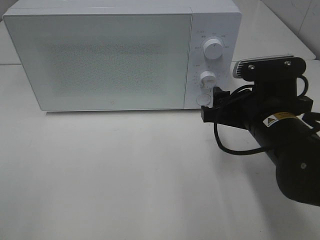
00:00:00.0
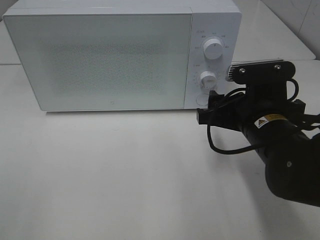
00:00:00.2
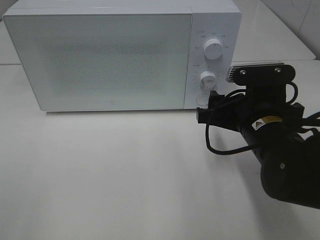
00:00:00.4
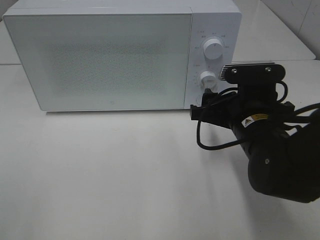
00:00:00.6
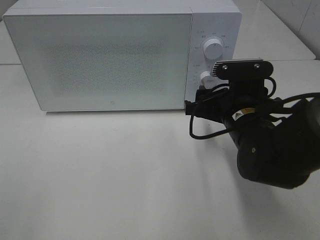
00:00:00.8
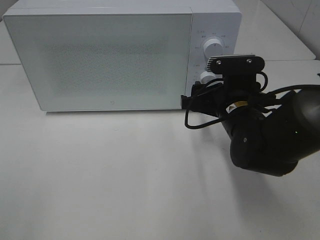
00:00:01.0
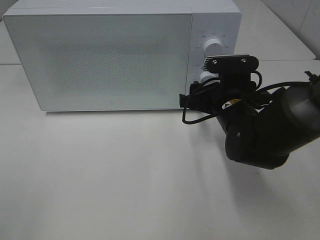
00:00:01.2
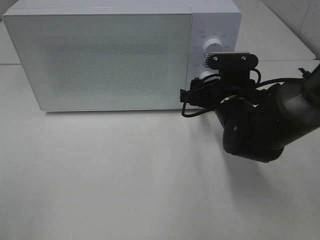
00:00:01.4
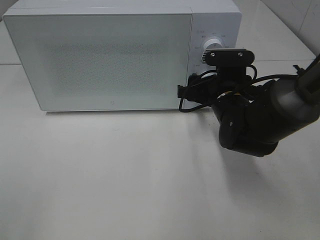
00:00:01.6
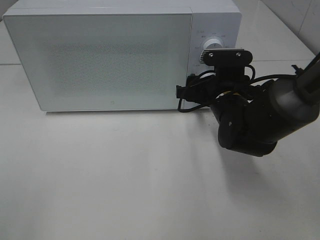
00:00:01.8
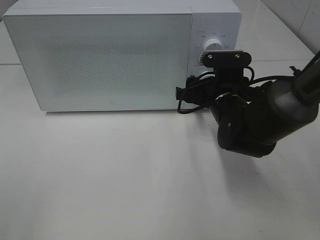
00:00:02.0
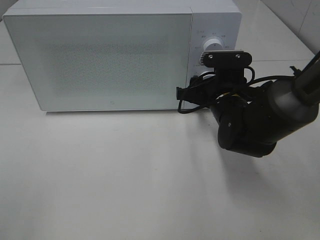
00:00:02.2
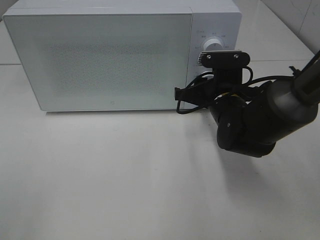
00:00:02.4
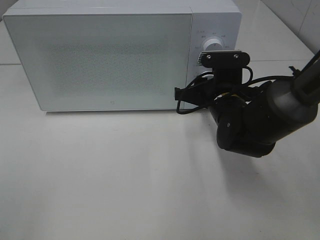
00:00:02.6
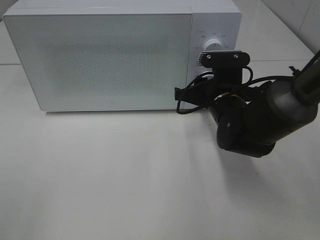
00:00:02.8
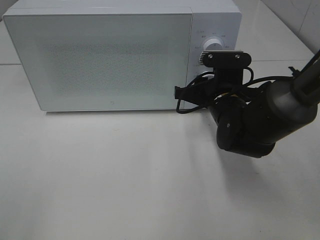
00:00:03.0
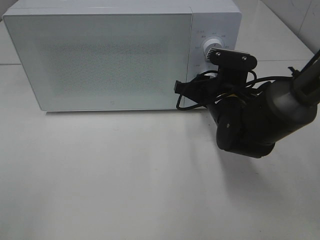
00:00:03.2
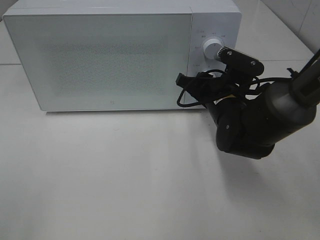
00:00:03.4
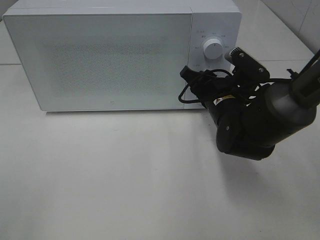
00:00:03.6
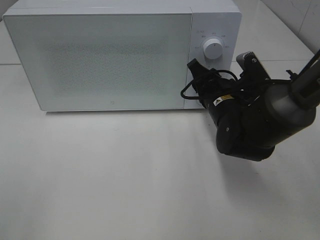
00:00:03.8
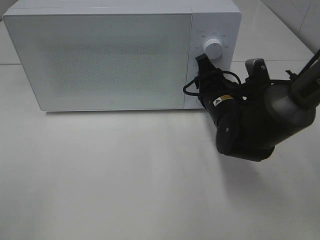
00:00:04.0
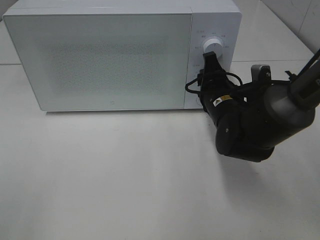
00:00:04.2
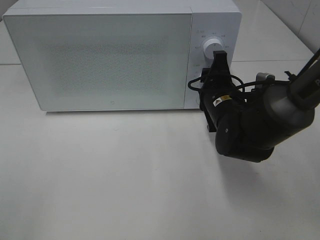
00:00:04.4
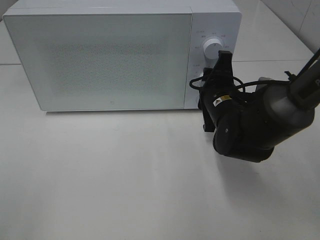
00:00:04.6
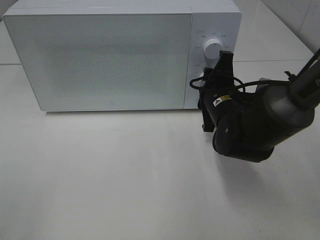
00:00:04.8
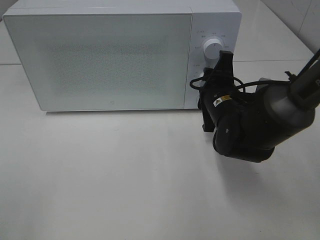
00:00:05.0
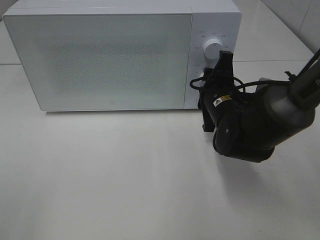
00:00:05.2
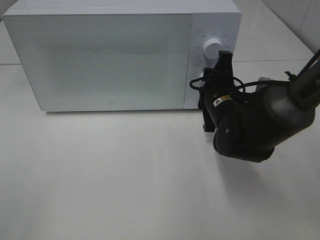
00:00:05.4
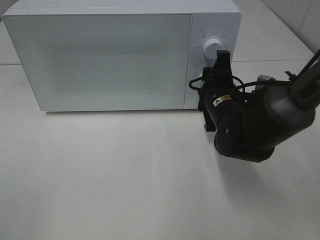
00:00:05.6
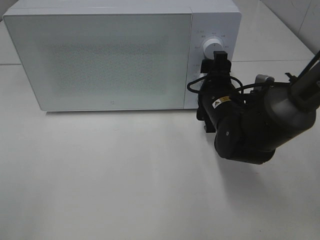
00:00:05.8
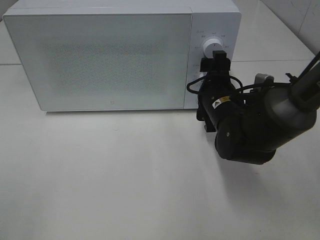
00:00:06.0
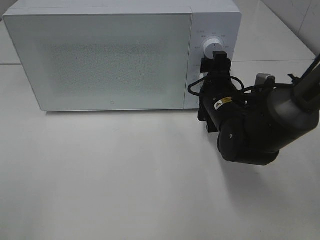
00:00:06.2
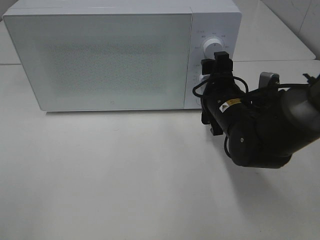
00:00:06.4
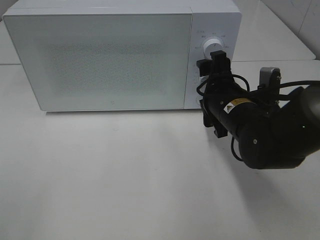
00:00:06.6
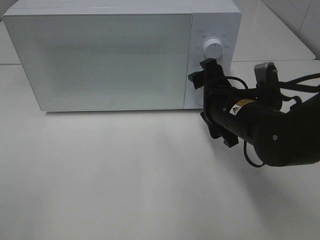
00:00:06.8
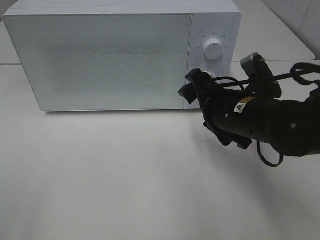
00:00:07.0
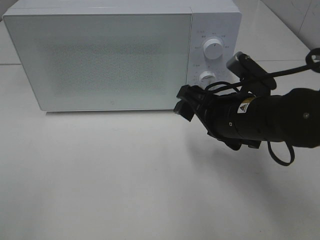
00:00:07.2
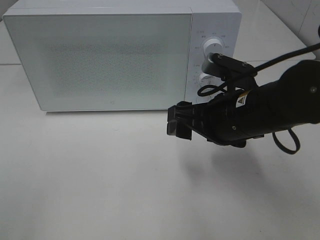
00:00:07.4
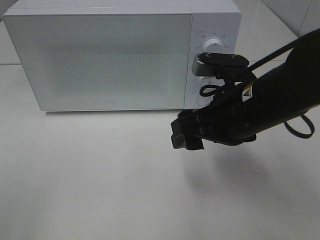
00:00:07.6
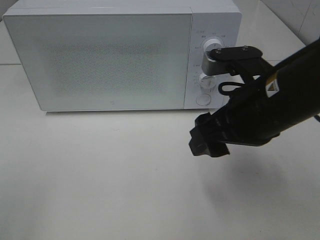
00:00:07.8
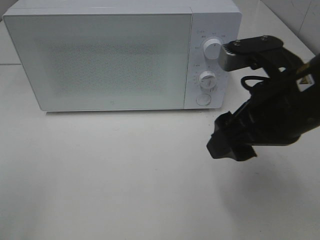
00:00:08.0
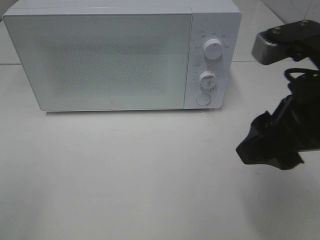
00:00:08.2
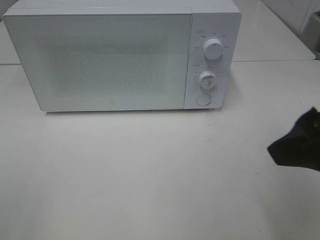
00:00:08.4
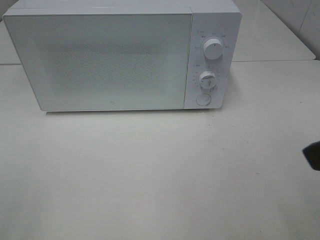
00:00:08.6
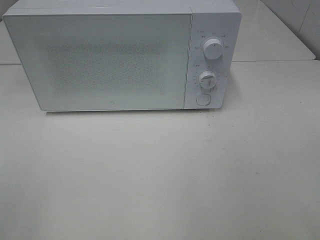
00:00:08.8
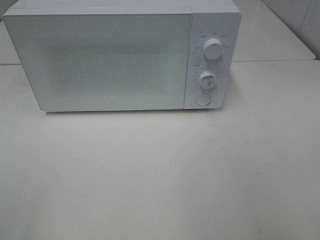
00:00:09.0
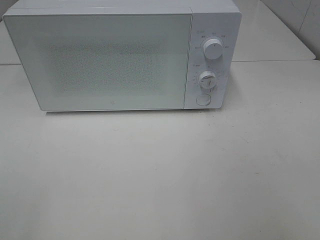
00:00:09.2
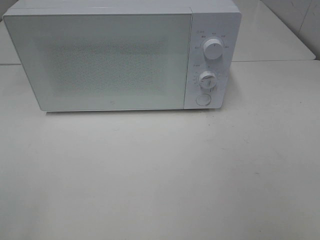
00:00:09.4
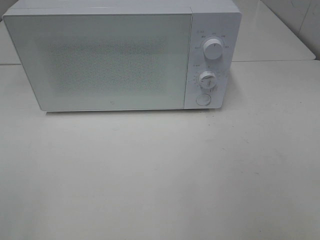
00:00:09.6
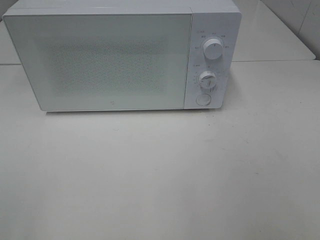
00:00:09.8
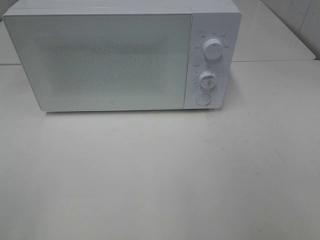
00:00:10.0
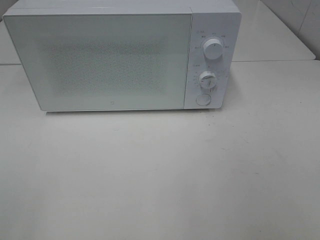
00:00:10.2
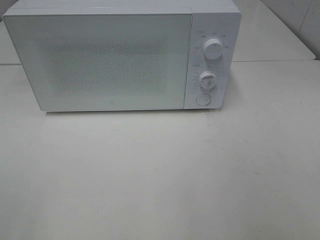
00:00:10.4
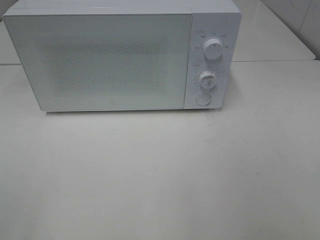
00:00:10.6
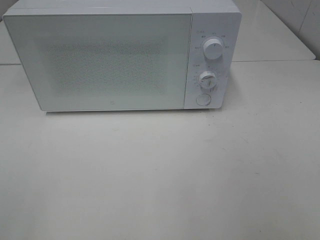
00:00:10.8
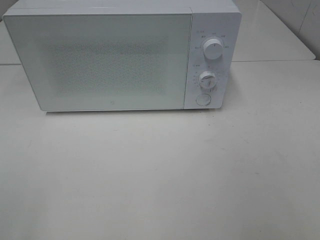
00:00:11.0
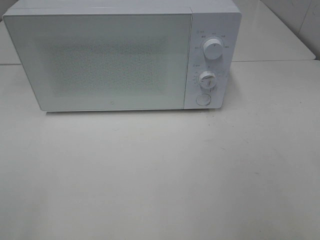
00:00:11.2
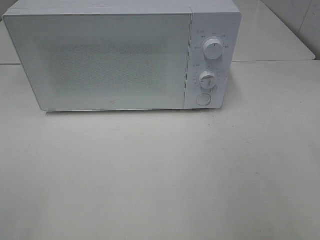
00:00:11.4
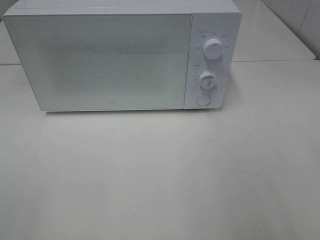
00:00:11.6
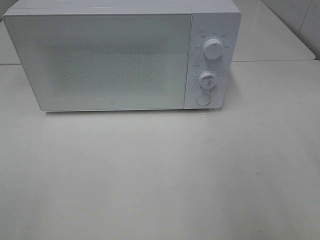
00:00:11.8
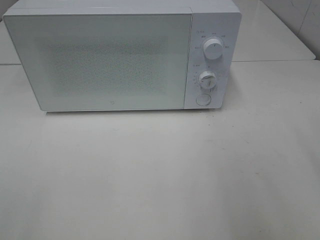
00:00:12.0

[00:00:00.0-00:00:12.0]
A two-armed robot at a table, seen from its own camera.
Task of the whole recording: Heat Sandwich.
Step, 00:00:00.0 to 00:00:06.8: Right hand: twist timer button.
00:00:00.0 to 00:00:01.6: The right gripper goes roughly 10 cm forward.
00:00:01.6 to 00:00:03.0: The right gripper closes its fingers.
00:00:04.4 to 00:00:06.0: The right gripper opens its fingers.
00:00:06.0 to 00:00:07.6: The right gripper heads backward and upward, covering some 10 cm.
00:00:07.6 to 00:00:09.0: The right gripper is displaced backward, to the right and upward by about 25 cm.

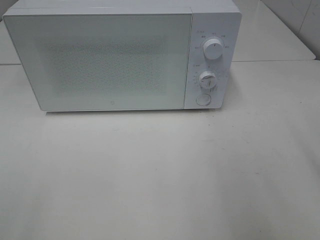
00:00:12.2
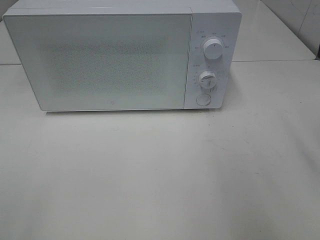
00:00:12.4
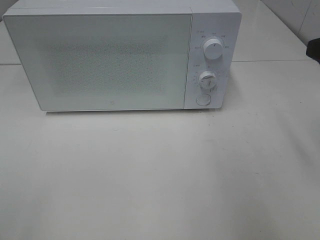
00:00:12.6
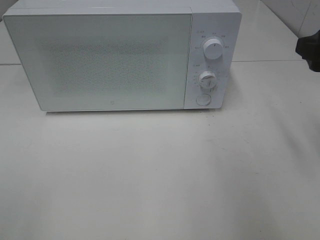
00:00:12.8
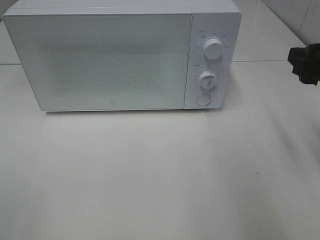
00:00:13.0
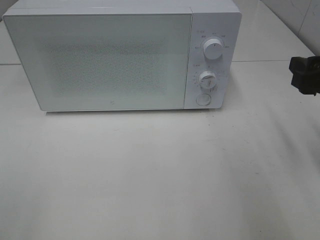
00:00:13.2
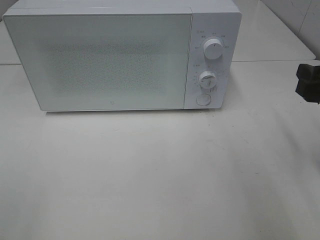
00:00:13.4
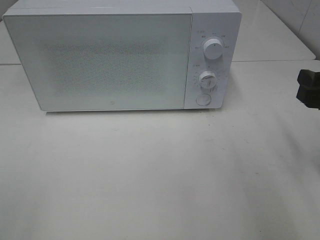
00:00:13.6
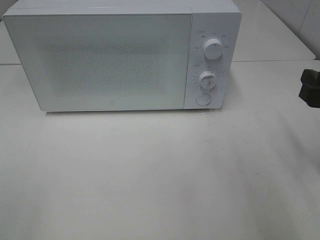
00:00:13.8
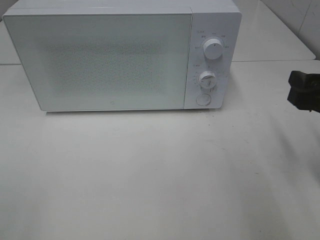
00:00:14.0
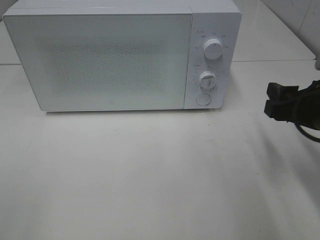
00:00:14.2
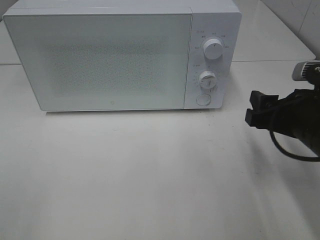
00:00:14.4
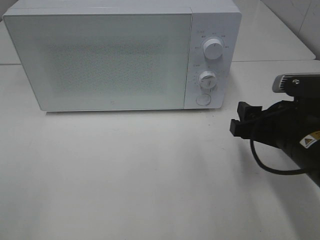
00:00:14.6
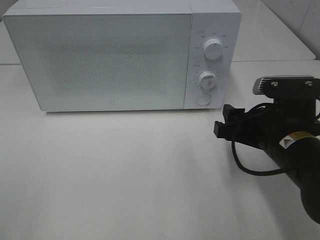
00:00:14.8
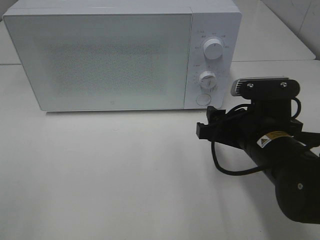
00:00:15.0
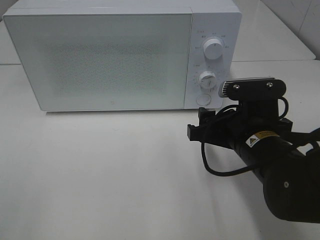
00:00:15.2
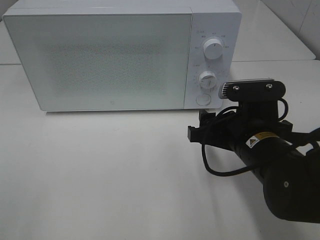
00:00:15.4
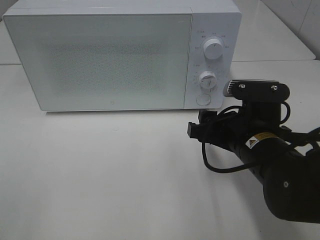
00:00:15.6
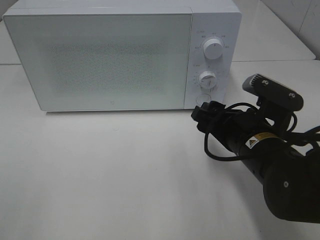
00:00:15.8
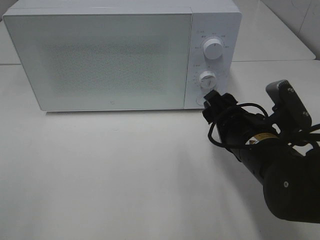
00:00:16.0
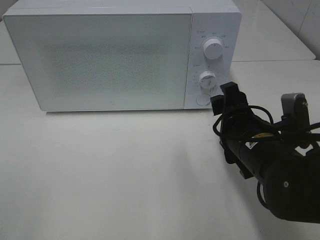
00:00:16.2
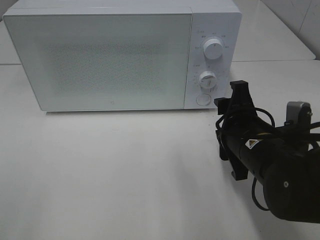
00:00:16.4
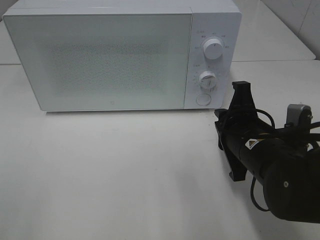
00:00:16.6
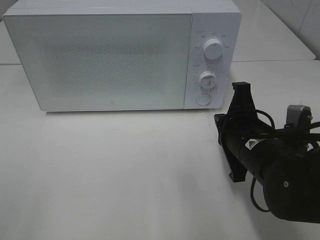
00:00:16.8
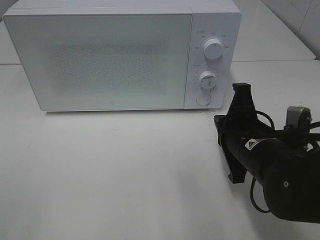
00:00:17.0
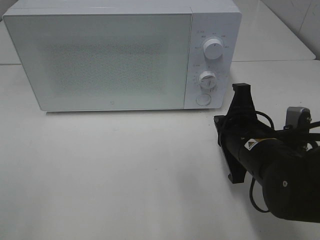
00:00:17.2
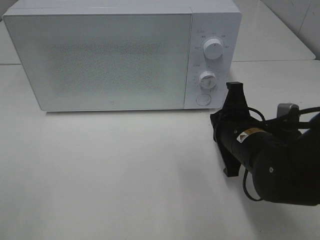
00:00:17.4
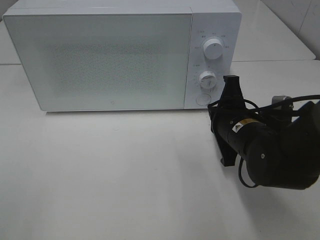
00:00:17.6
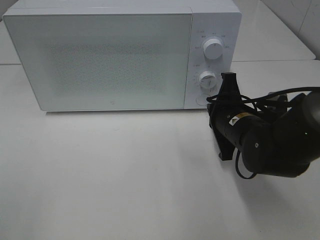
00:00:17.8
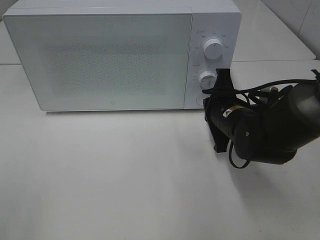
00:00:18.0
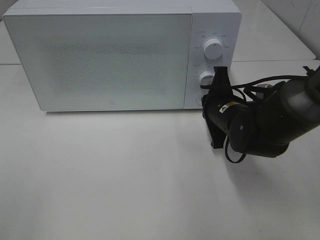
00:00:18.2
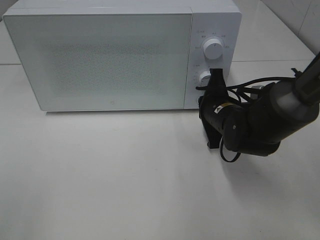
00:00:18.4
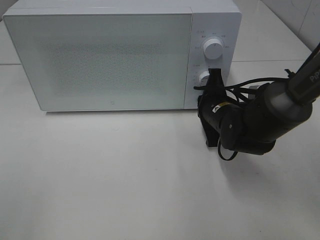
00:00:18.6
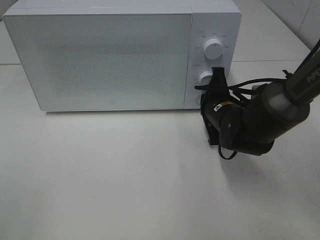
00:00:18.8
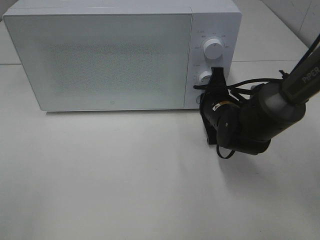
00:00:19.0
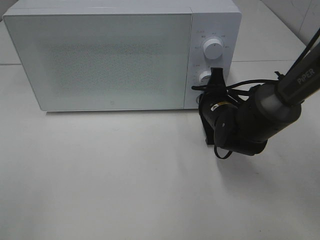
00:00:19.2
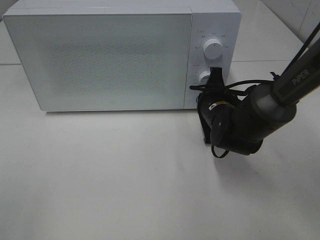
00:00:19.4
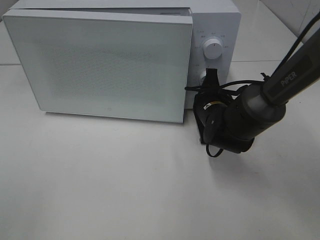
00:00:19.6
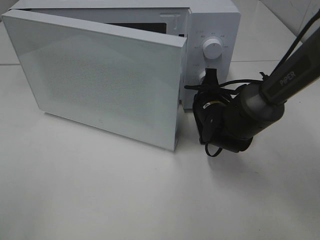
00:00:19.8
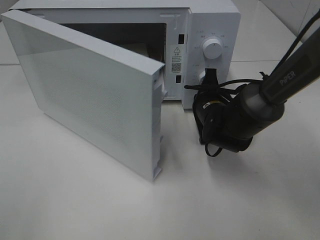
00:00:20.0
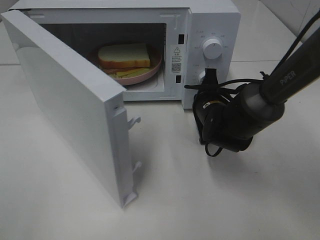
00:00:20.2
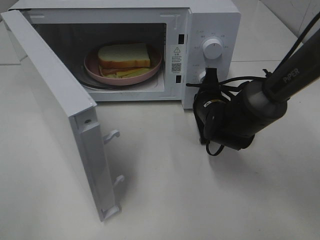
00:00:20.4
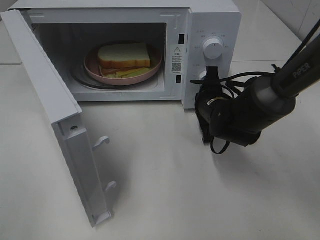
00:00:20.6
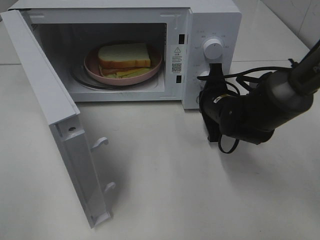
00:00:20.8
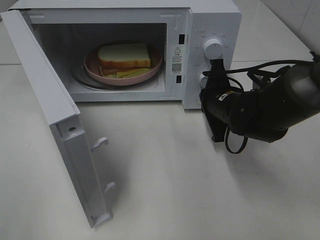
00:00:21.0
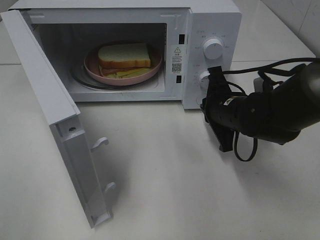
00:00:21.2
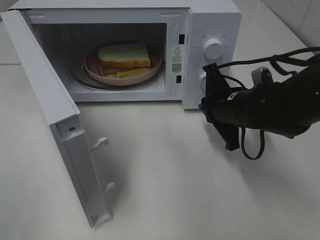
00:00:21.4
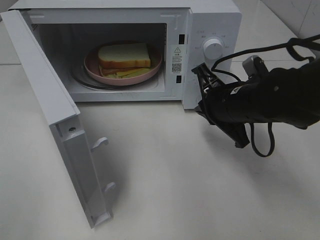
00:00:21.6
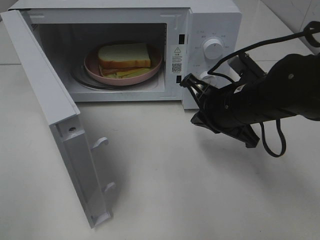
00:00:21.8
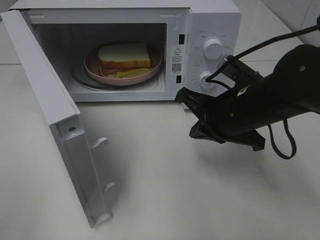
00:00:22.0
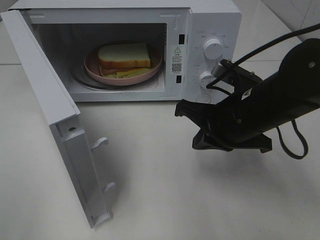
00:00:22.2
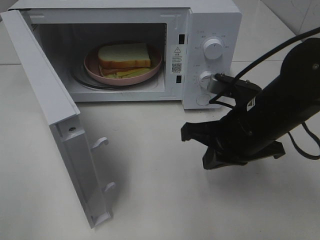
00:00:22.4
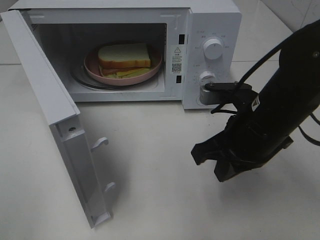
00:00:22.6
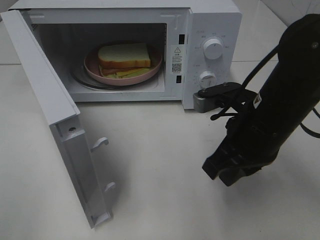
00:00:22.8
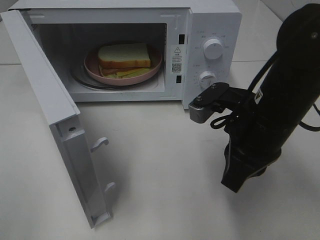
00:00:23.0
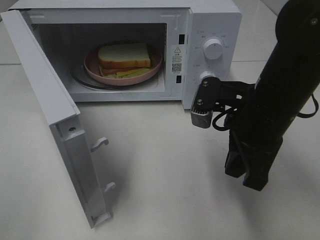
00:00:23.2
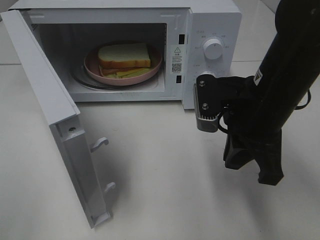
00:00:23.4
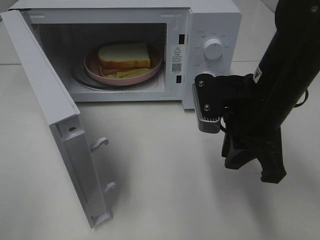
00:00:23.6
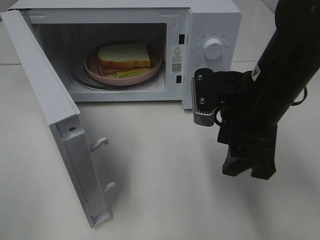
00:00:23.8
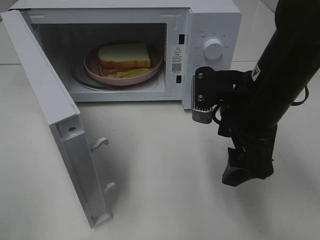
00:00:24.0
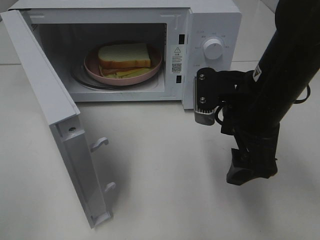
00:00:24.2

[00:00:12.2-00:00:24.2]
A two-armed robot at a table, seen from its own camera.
Task of the whole recording: Heat Sandwich.
Step, 00:00:12.2 to 00:00:21.2: Right hand: press the switch.
00:00:12.2 to 00:00:13.8: The right gripper heads downward, covering about 10 cm.
00:00:13.8 to 00:00:15.2: The right gripper moves to the left and downward, about 15 cm.
00:00:15.2 to 00:00:16.6: The right gripper closes up.
00:00:16.6 to 00:00:18.2: The right gripper moves forward, about 10 cm.
00:00:18.2 to 00:00:19.8: The right gripper ends up about 5 cm from where it was.
00:00:19.8 to 00:00:21.2: The right gripper ends up some 5 cm from where it was.
00:00:21.2 to 00:00:22.6: The right gripper heads backward and upward, covering about 10 cm.
00:00:22.6 to 00:00:24.2: The right gripper opens up.
